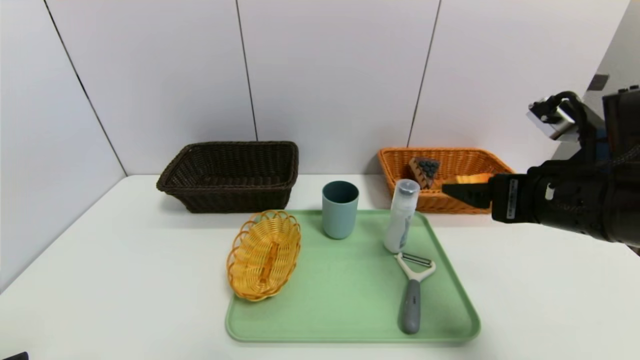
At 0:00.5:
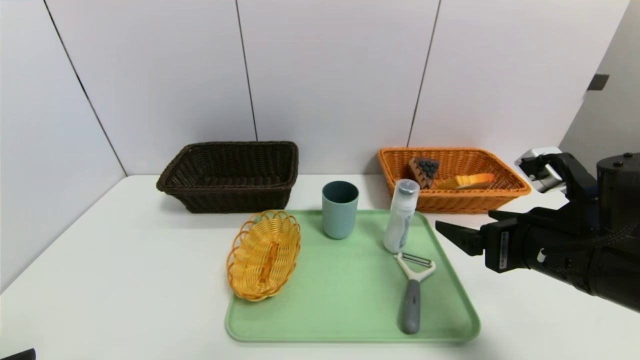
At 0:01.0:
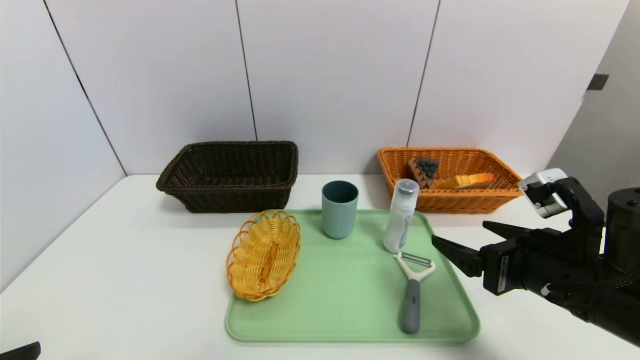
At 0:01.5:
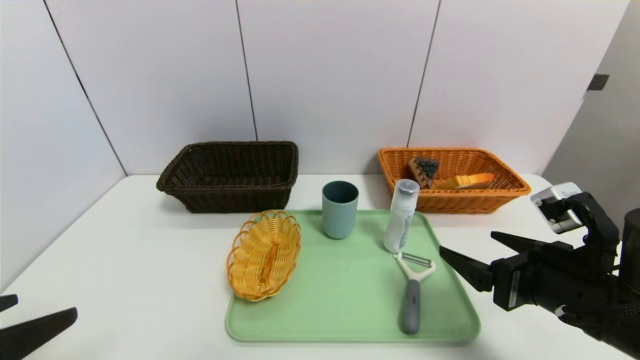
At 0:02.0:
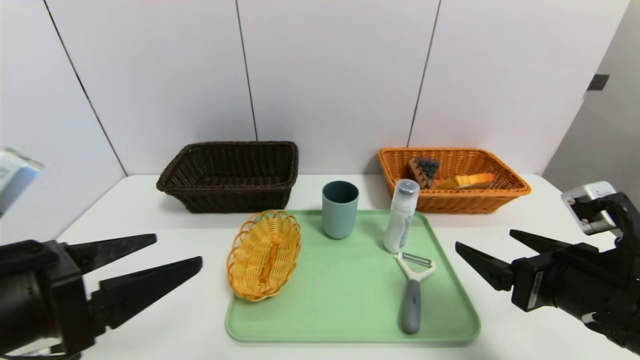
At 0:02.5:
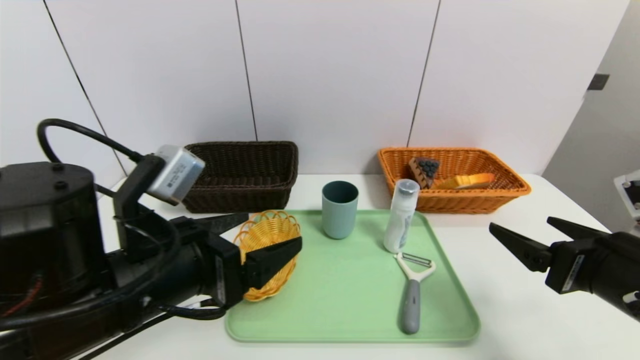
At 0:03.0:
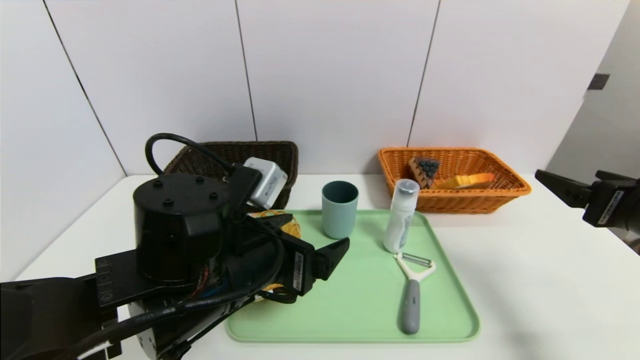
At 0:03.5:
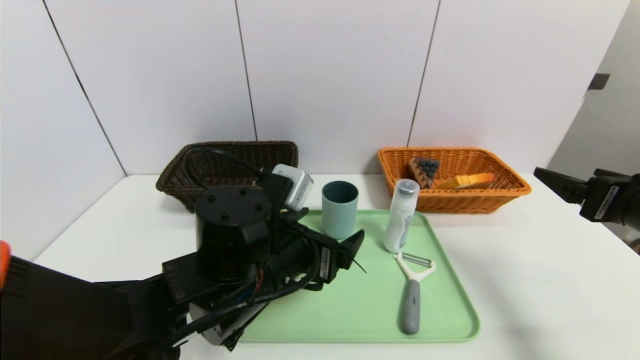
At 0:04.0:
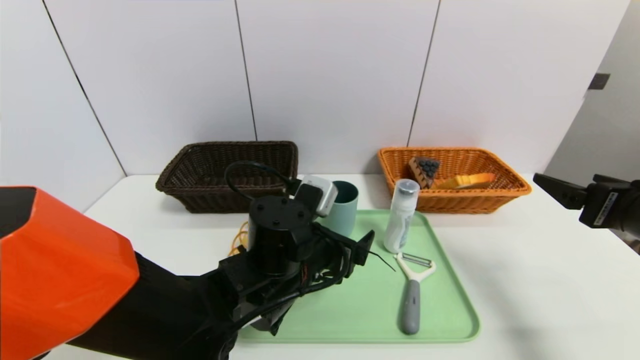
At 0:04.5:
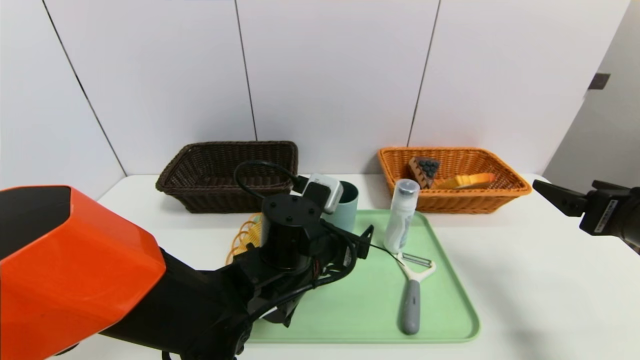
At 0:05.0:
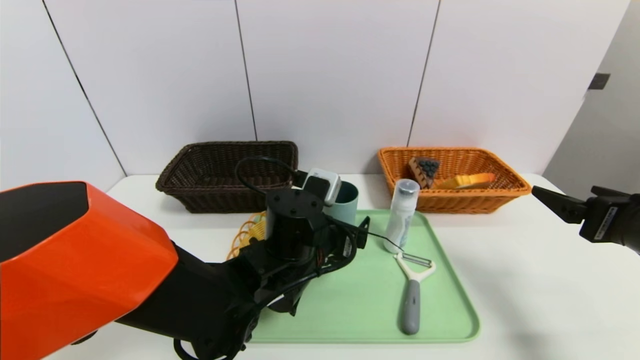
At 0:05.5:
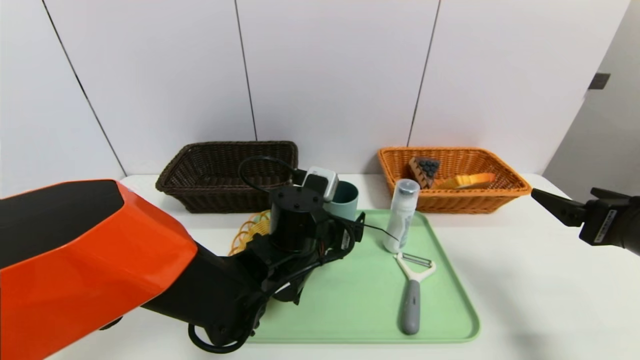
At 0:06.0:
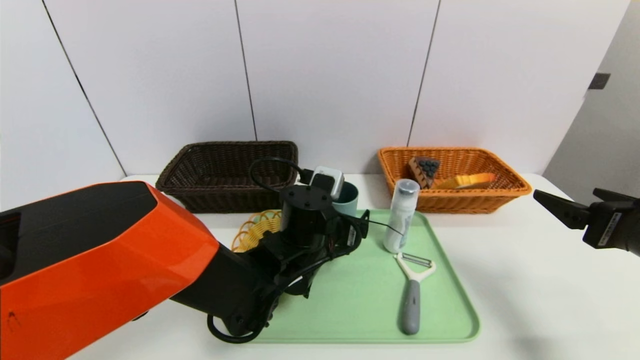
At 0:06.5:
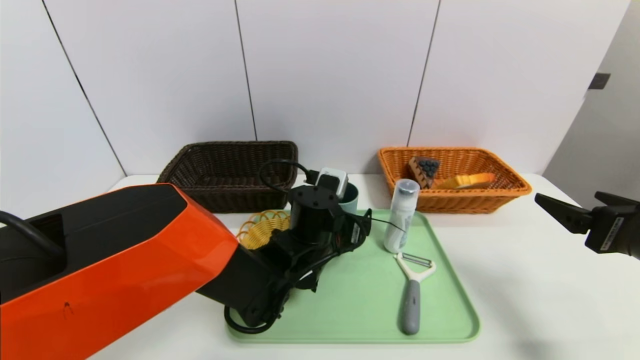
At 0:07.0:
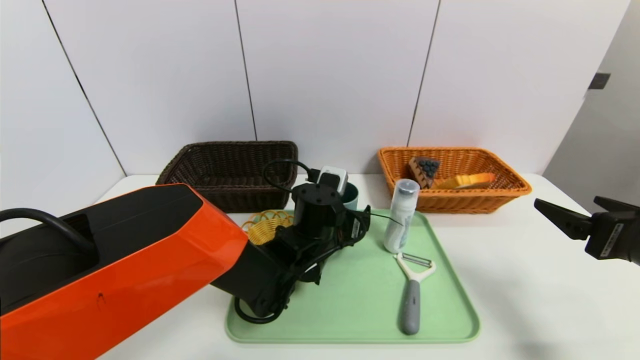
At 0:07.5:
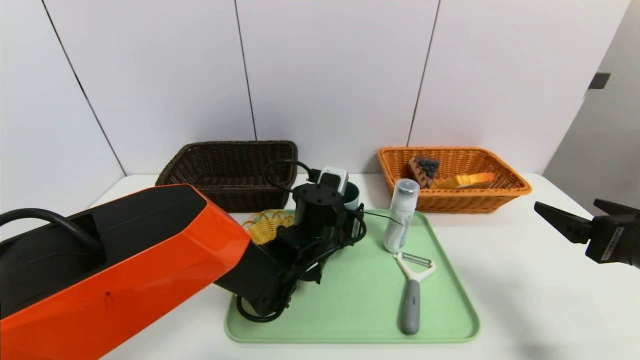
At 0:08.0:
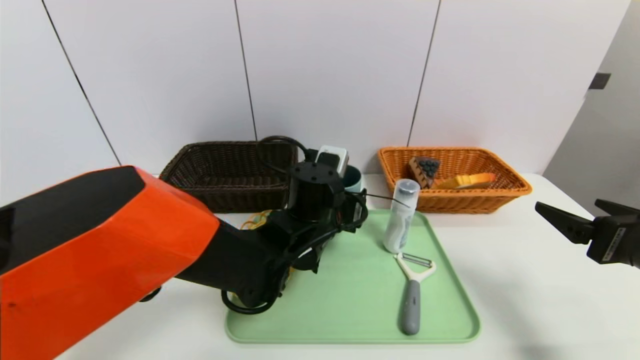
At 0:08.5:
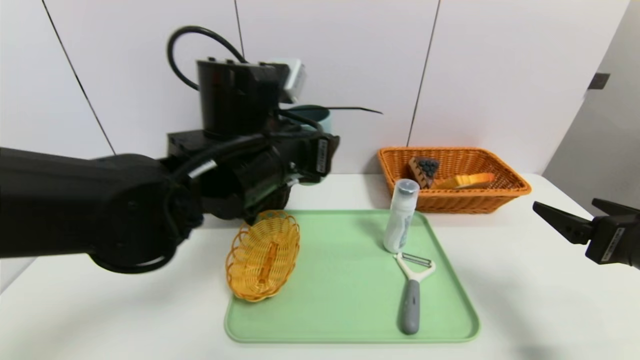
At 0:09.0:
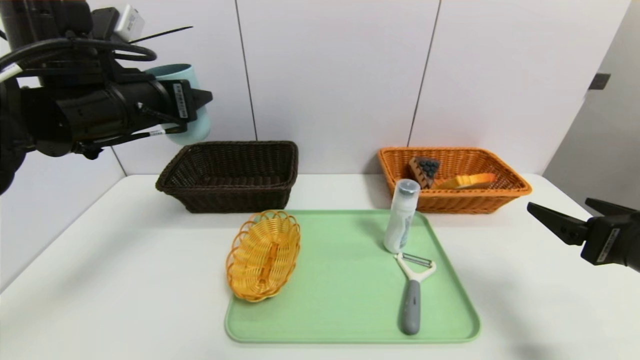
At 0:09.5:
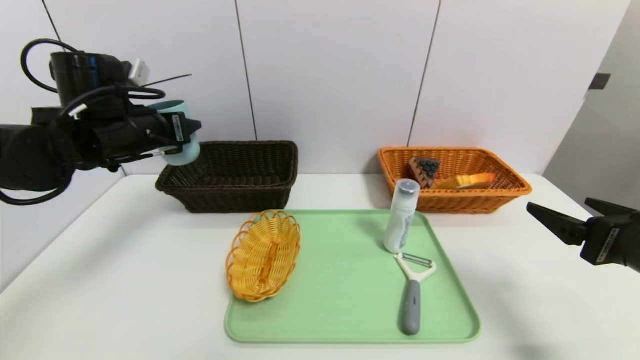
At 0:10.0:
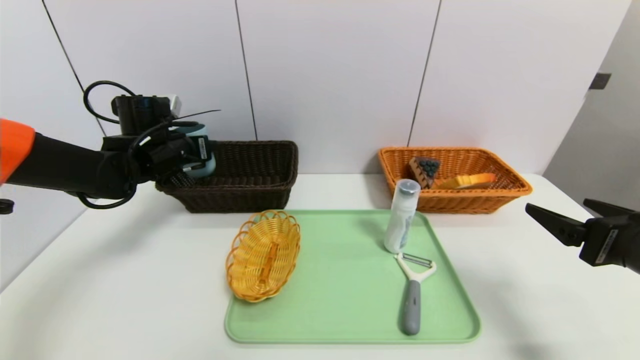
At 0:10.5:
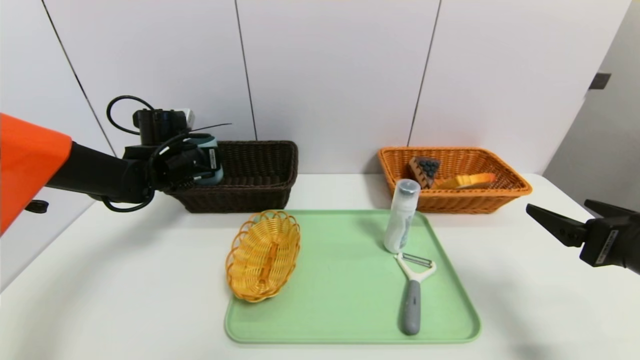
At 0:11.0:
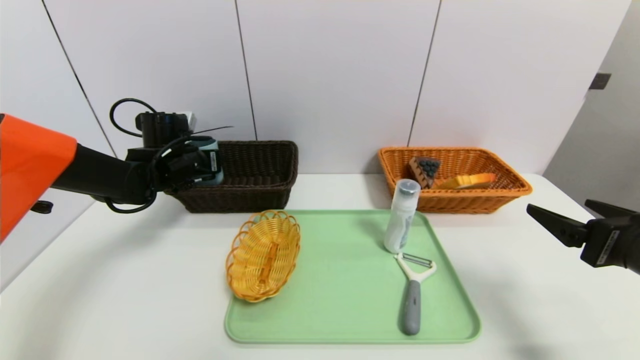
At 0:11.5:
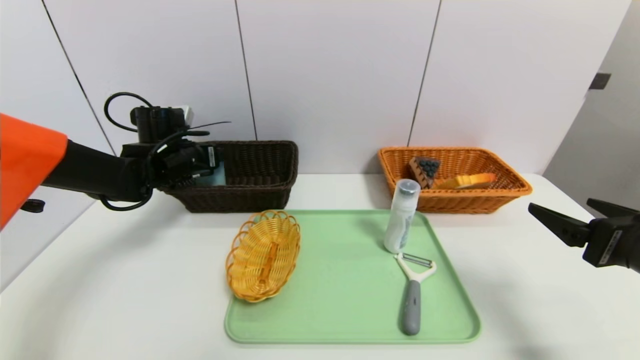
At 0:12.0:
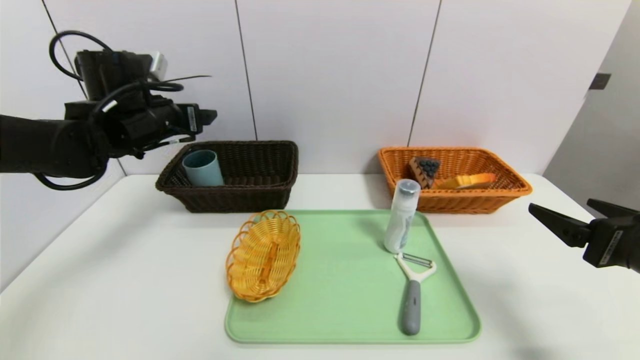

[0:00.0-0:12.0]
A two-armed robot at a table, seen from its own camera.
Task of the whole recording: place the food in the right basket with the right gripper, and place the non food items in the left basket with the left gripper.
Step, 0:00.0 to 0:11.5: Grasp the blue cup and put it in the left basket.
0:00.0 to 0:02.0: The left gripper goes roughly 10 cm forward and to the right; the right gripper moves downward and backward, approximately 10 cm.
0:02.0 to 0:04.0: The left gripper shifts about 25 cm to the right, forward and downward; the right gripper travels to the right by about 10 cm.
0:04.0 to 0:06.0: The left gripper shifts approximately 5 cm forward.
0:06.0 to 0:08.0: The left gripper closes its fingers.
0:08.0 to 0:10.0: The left gripper is displaced to the left and forward by some 30 cm.
0:10.0 to 0:12.0: The left gripper moves upward, approximately 10 cm.

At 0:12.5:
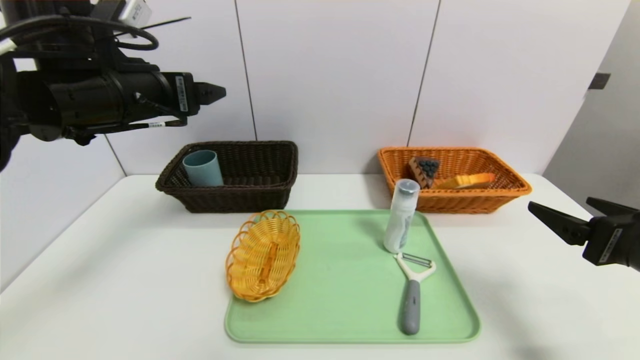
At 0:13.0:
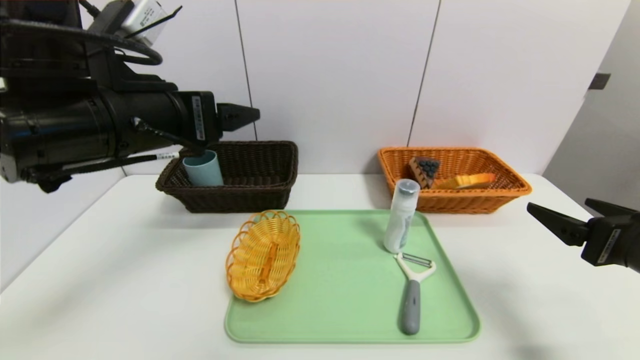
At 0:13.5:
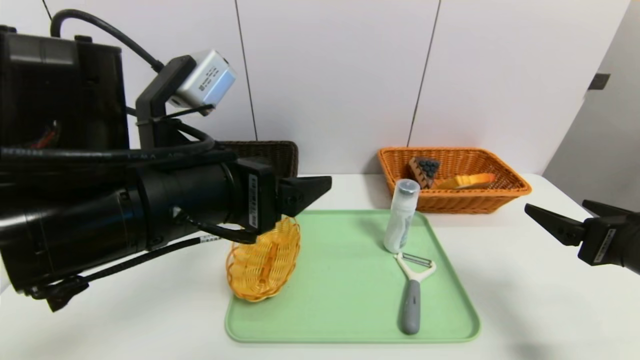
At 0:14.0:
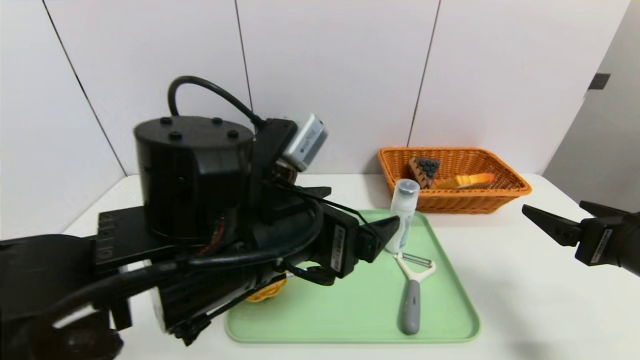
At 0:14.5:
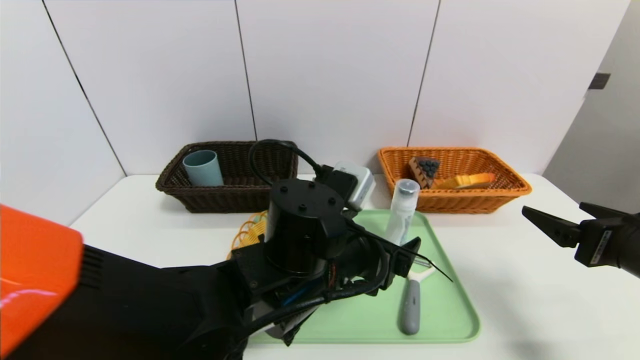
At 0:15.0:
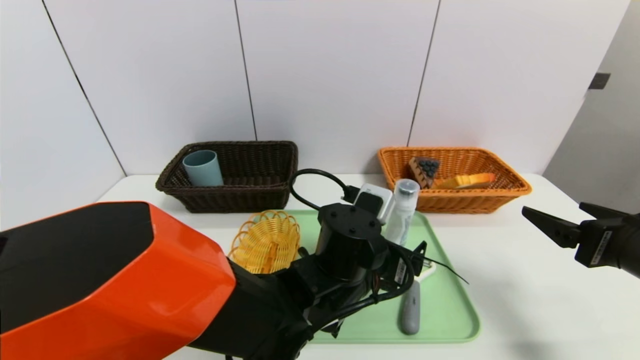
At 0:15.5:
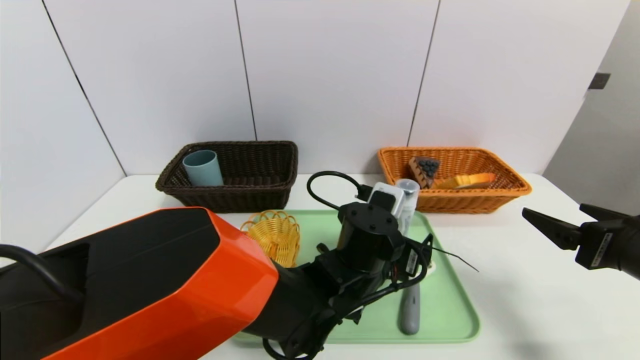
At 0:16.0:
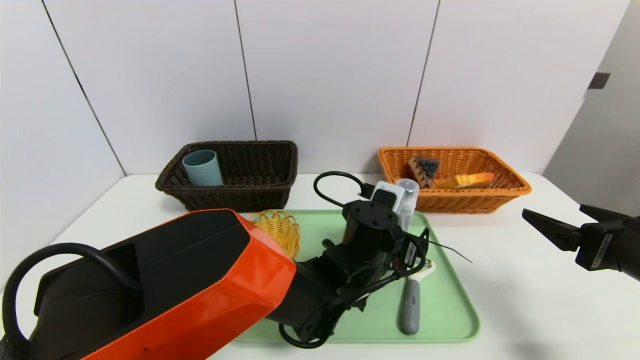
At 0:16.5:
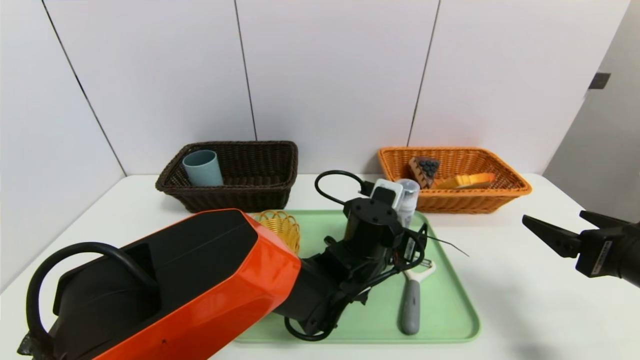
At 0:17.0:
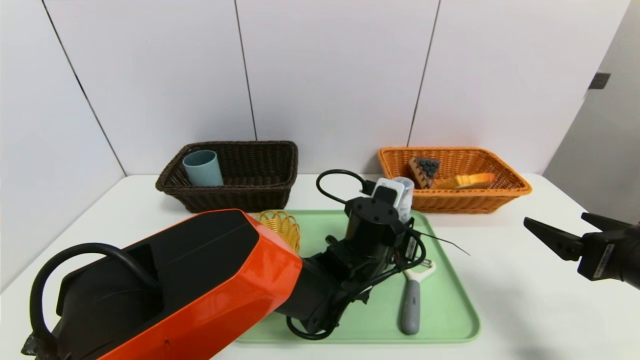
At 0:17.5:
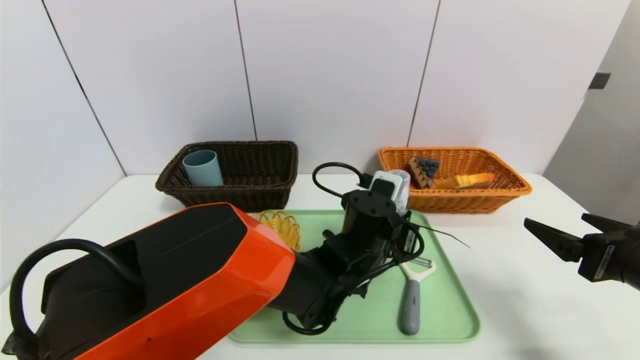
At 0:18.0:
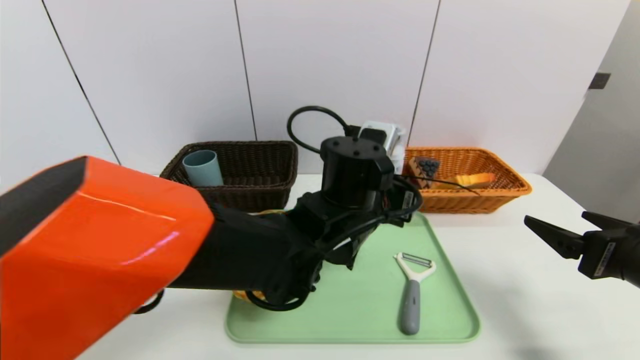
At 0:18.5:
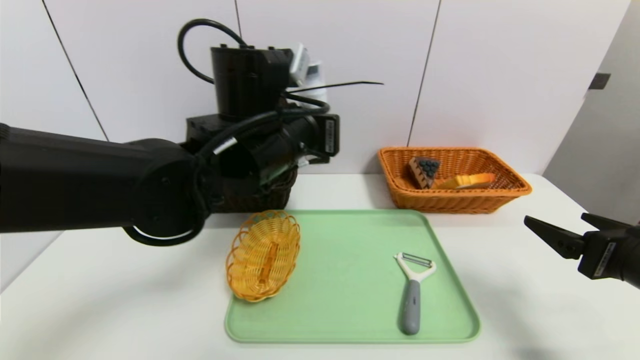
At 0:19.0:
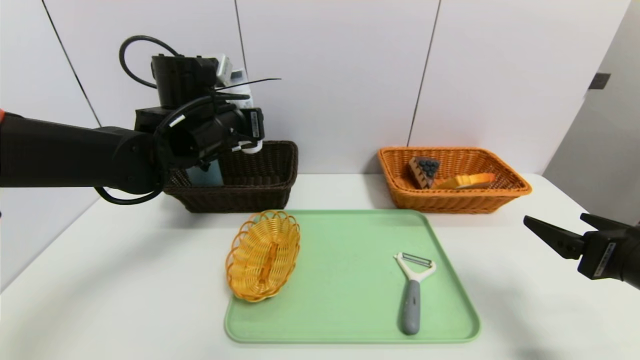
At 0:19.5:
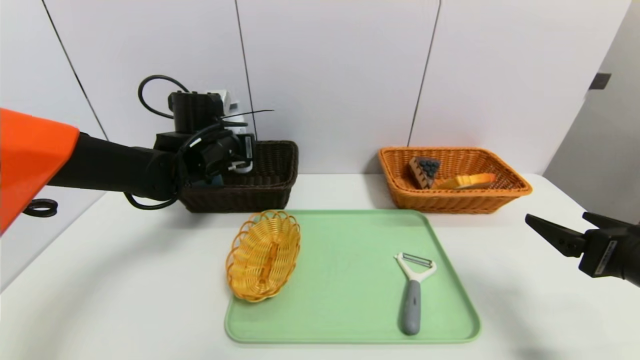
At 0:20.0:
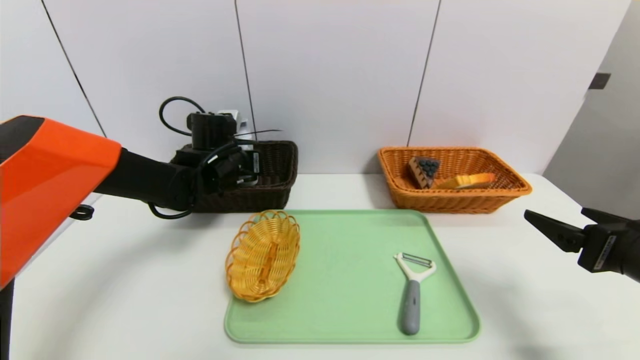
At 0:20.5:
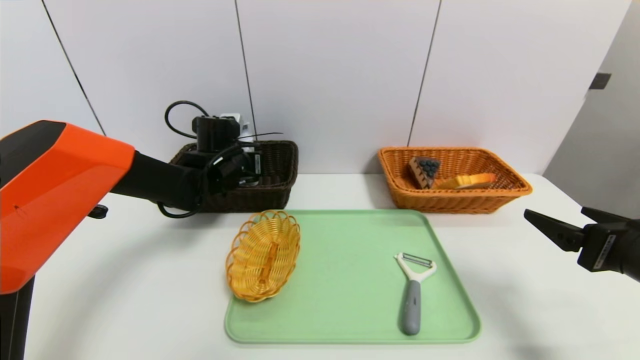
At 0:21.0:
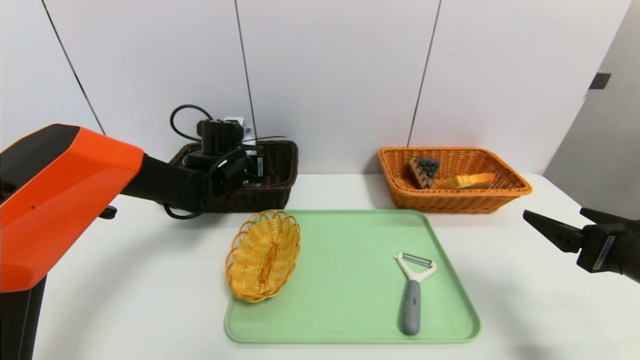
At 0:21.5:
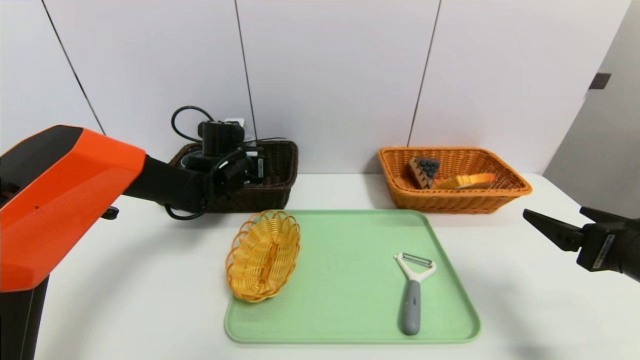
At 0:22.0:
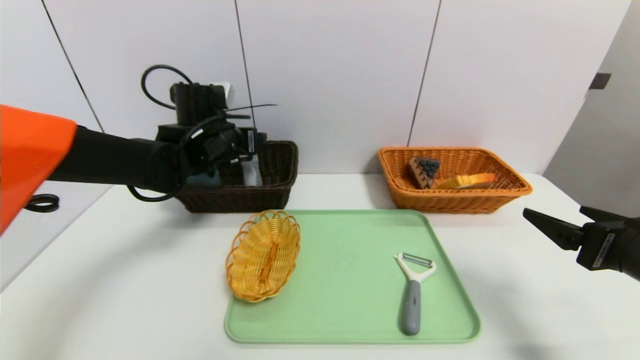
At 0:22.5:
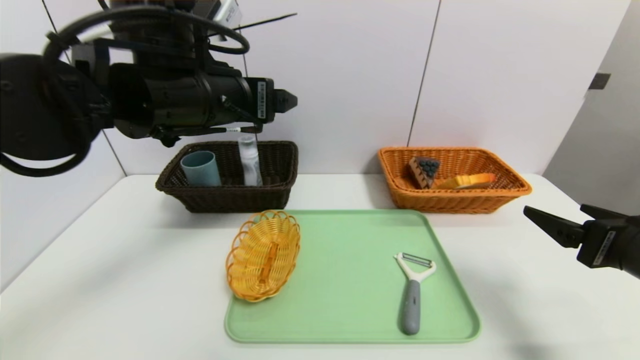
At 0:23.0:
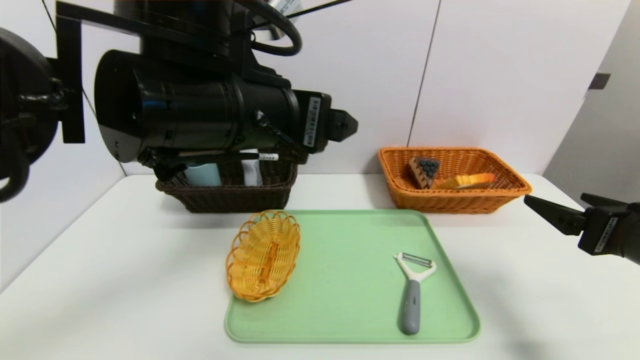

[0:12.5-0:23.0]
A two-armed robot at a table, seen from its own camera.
Task of the whole recording: place the food in the right basket with the right gripper, and place the non food items in the left basket with the left gripper.
Step, 0:12.5 to 0:22.0: Grasp the cleaning agent and put it in the left basket.
0:12.5 to 0:14.5: The left gripper heads to the right and downward, covering about 25 cm.
0:14.5 to 0:16.5: The left gripper moves forward, to the right and downward, some 15 cm.
0:16.5 to 0:19.0: The left gripper shifts about 30 cm to the left and upward, and closes its fingers.
0:19.0 to 0:21.0: The left gripper heads downward and forward, covering about 10 cm.
0:21.0 to 0:23.0: The left gripper moves backward, upward and to the right, roughly 30 cm, and opens up.
